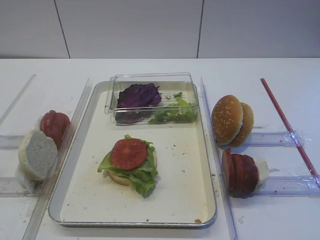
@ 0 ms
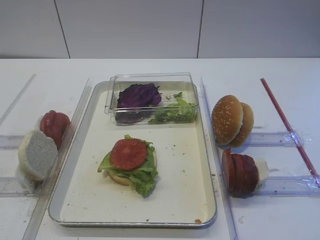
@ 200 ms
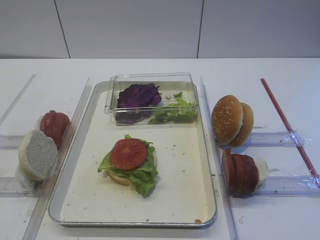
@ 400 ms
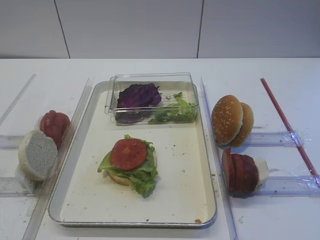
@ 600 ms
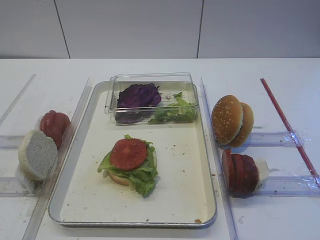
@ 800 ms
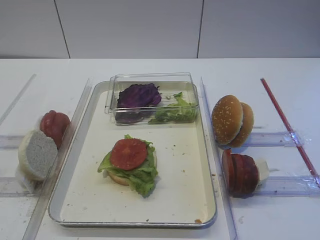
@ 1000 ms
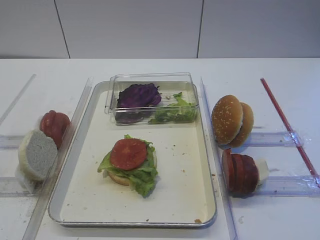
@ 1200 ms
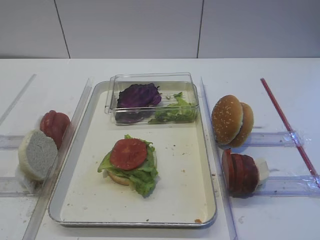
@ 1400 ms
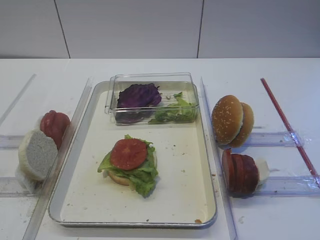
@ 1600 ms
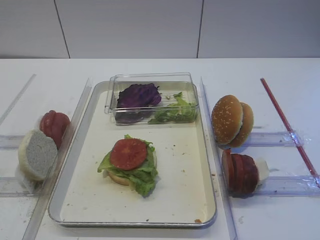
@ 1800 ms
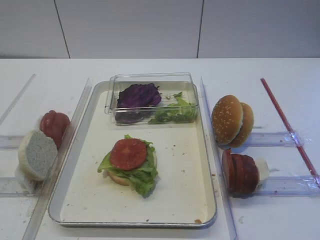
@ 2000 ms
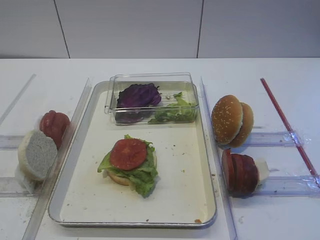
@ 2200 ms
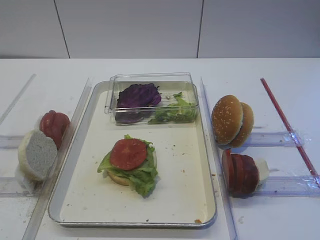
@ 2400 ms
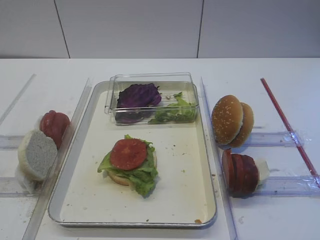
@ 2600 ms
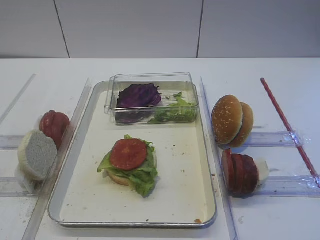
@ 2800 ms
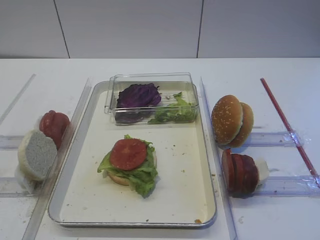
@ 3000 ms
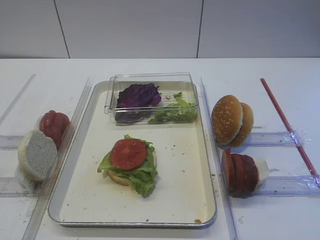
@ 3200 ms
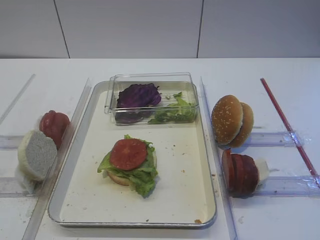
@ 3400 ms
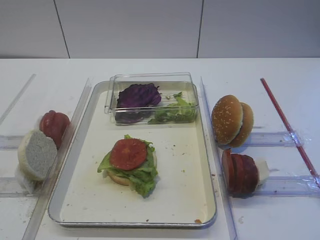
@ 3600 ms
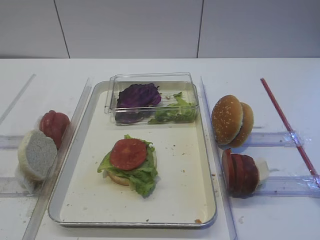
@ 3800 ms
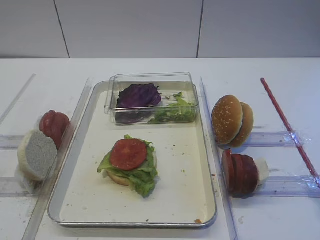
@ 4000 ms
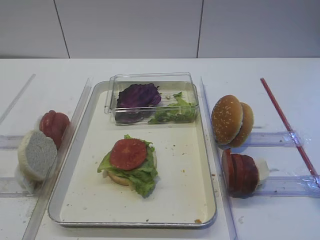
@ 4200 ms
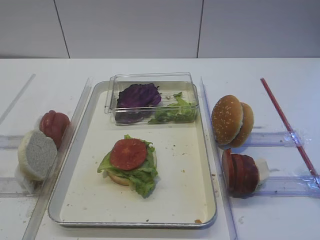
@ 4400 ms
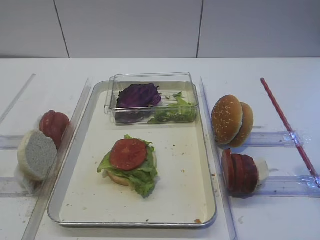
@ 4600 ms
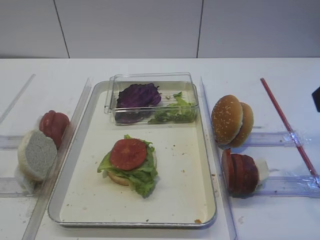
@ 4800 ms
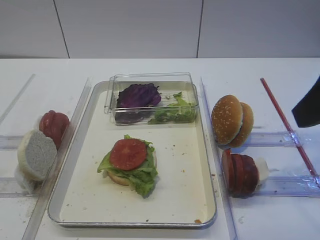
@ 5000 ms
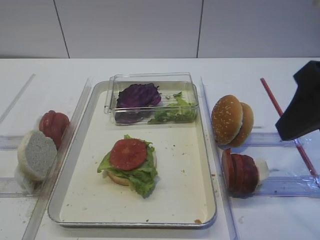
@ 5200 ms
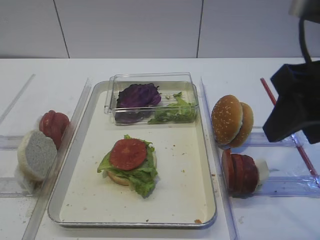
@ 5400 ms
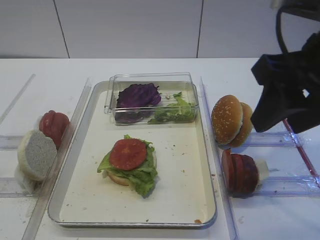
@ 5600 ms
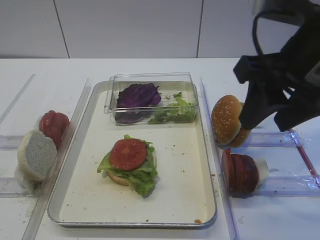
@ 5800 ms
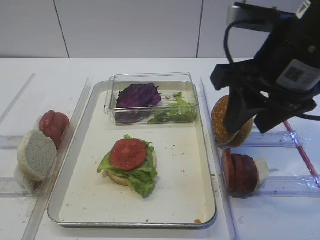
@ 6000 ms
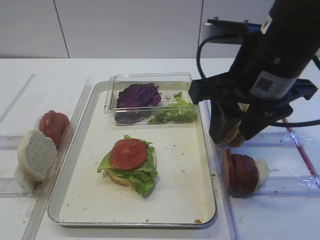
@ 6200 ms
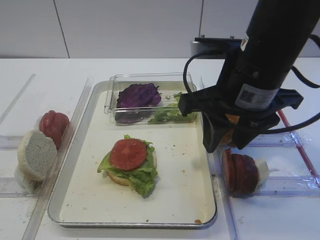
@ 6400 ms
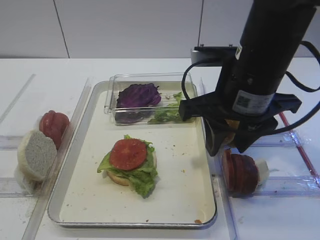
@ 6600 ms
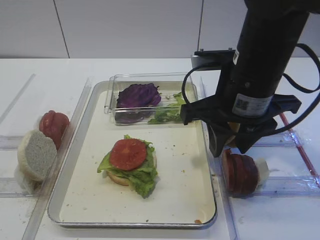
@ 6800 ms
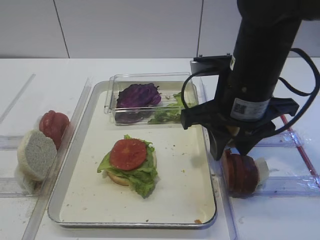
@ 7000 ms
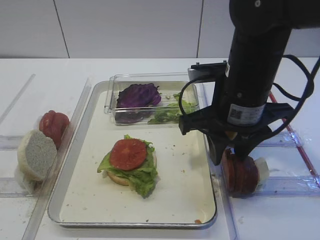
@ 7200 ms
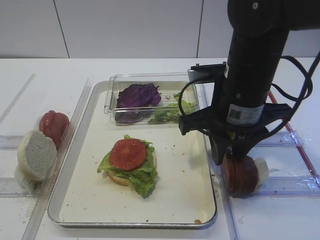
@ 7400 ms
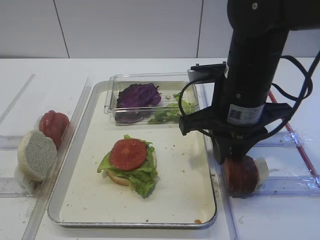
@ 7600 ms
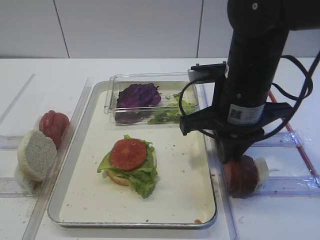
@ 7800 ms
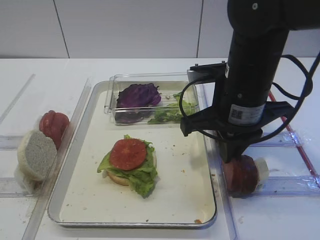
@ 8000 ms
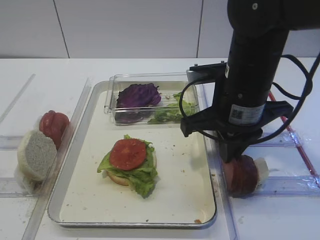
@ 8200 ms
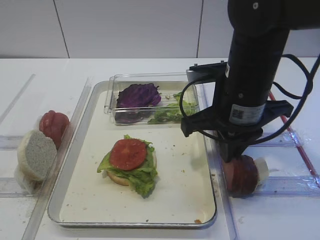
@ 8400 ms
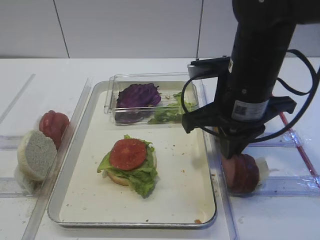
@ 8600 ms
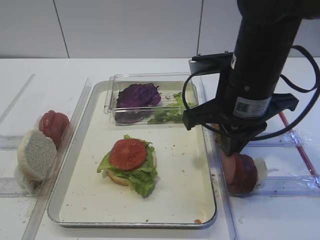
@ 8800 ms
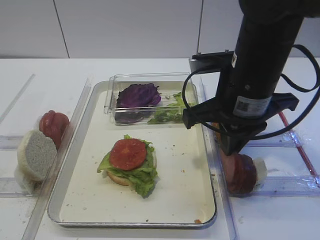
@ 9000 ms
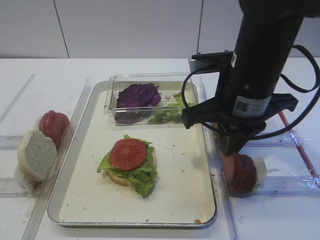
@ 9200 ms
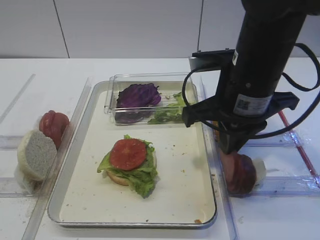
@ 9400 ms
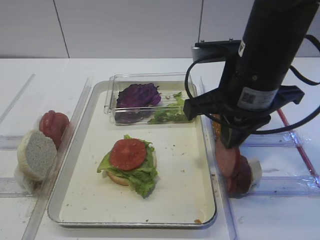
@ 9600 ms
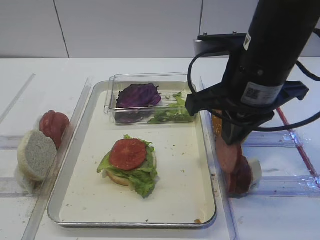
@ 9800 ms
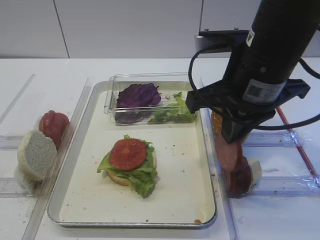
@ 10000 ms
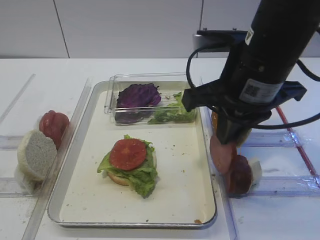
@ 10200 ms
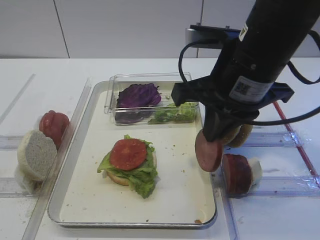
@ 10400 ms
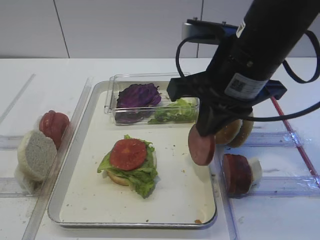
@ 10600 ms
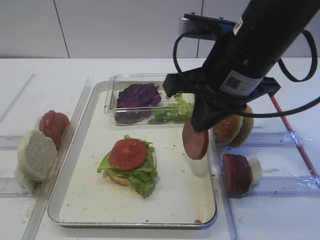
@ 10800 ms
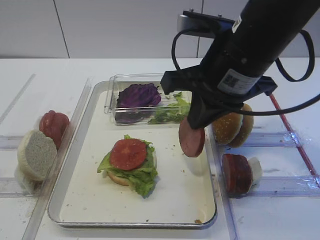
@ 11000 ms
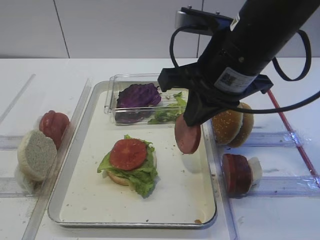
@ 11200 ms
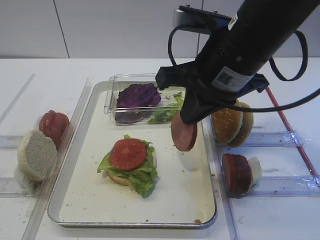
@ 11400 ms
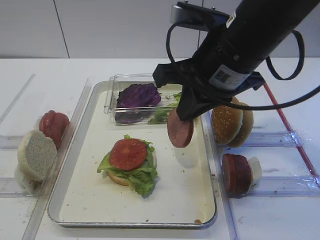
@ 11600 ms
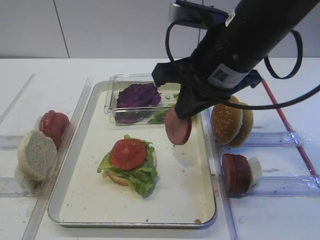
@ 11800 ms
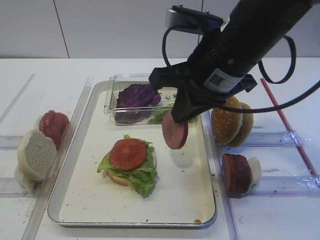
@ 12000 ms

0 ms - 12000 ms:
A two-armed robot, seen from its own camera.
Step, 0 ms - 9600 ms: Pick up the cutlet with the right gripper.
4400 ms - 6000 ms: The right gripper goes roughly 15 cm forward, to the left and downward.
6000 ms - 7600 ms: The right gripper travels downward by roughly 10 cm.
7600 ms - 10400 ms: The grippers move only a little.
10400 ms - 12000 ms: The left gripper opens.

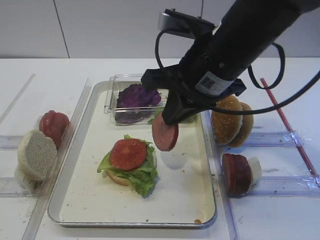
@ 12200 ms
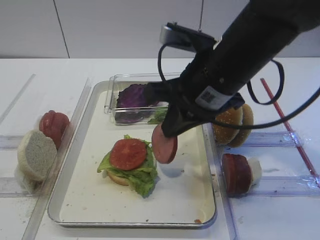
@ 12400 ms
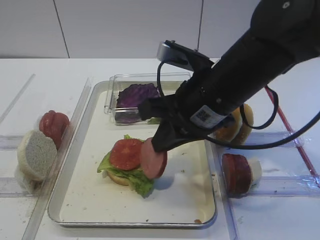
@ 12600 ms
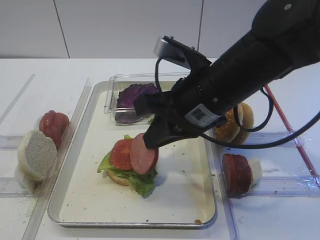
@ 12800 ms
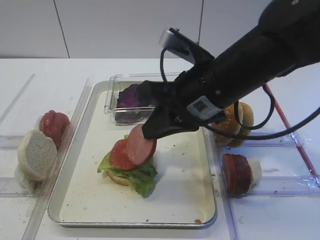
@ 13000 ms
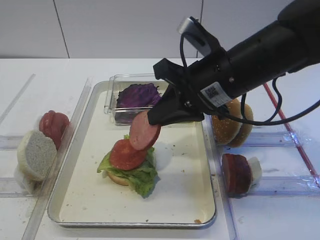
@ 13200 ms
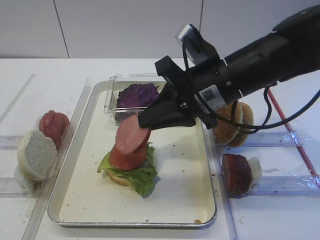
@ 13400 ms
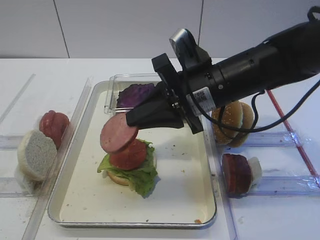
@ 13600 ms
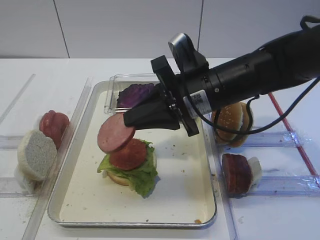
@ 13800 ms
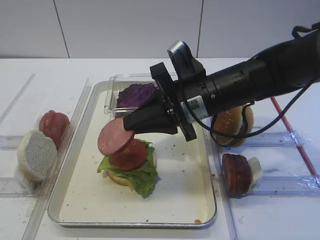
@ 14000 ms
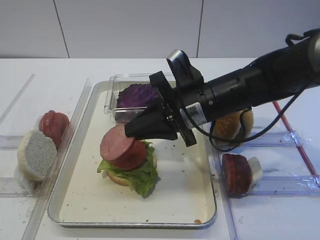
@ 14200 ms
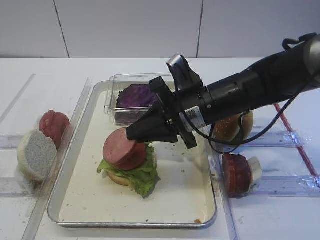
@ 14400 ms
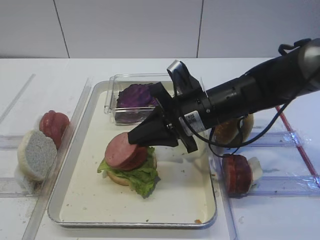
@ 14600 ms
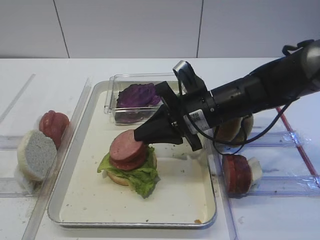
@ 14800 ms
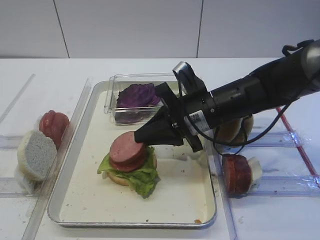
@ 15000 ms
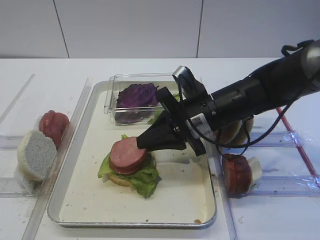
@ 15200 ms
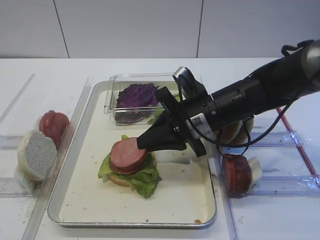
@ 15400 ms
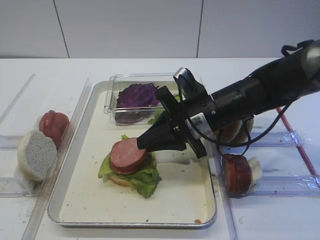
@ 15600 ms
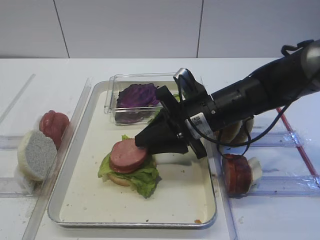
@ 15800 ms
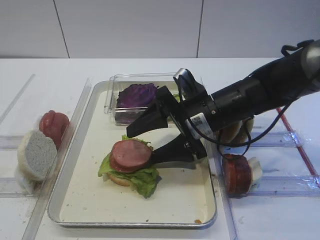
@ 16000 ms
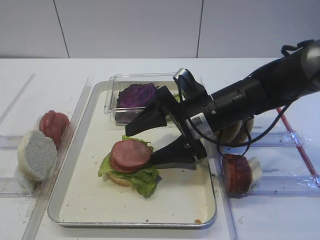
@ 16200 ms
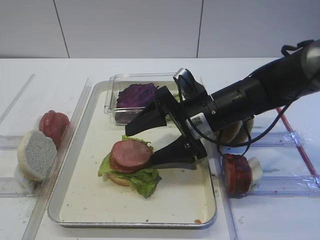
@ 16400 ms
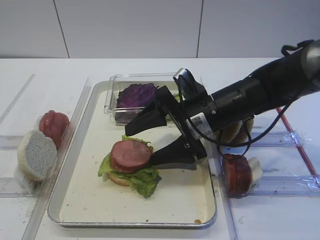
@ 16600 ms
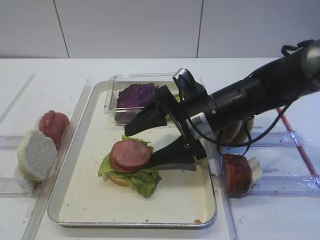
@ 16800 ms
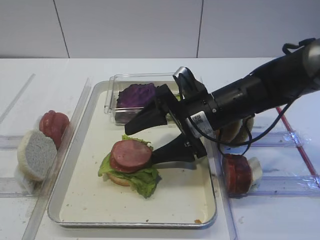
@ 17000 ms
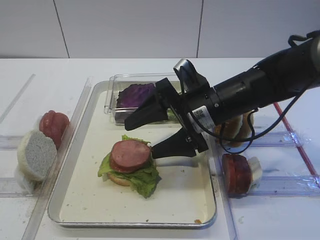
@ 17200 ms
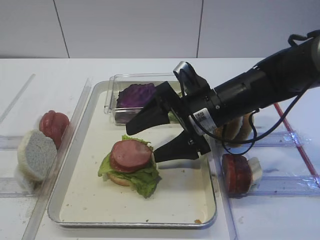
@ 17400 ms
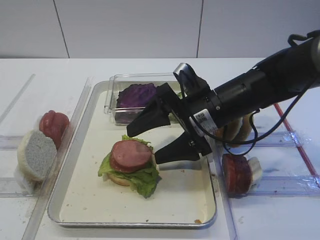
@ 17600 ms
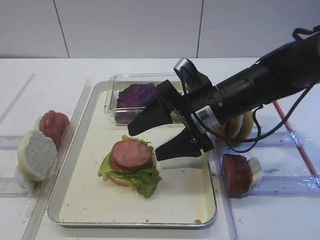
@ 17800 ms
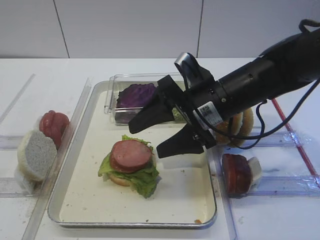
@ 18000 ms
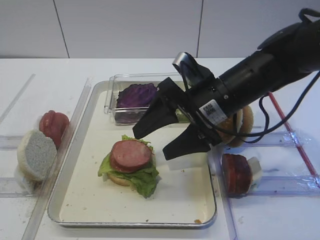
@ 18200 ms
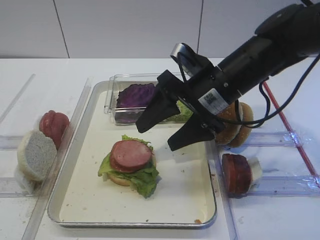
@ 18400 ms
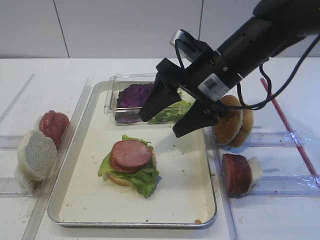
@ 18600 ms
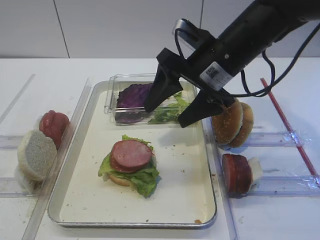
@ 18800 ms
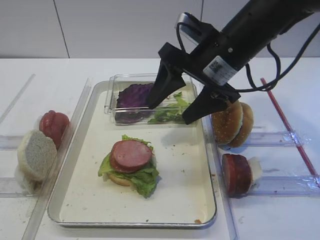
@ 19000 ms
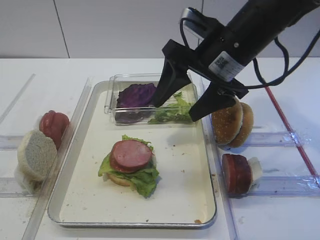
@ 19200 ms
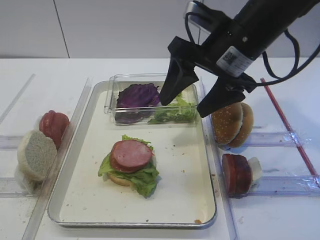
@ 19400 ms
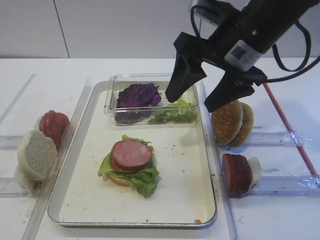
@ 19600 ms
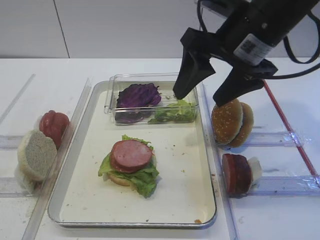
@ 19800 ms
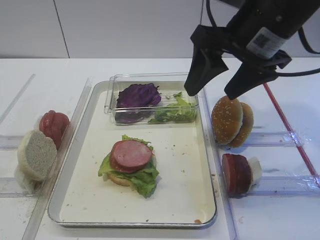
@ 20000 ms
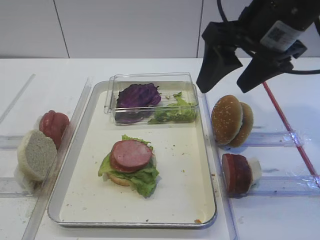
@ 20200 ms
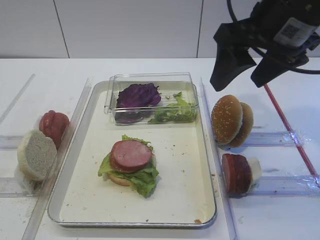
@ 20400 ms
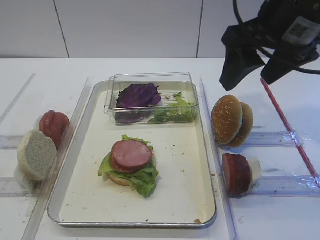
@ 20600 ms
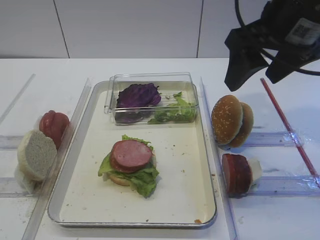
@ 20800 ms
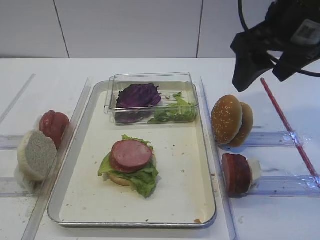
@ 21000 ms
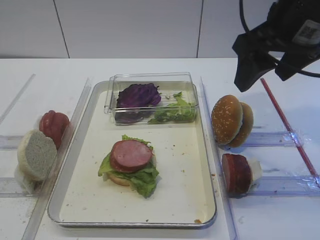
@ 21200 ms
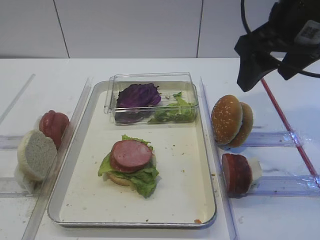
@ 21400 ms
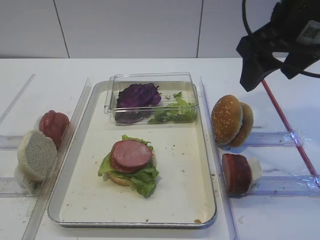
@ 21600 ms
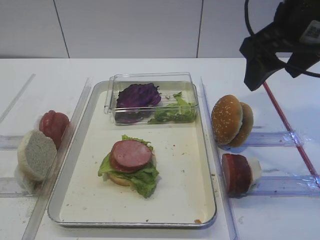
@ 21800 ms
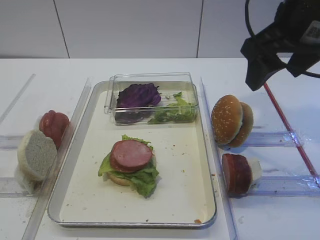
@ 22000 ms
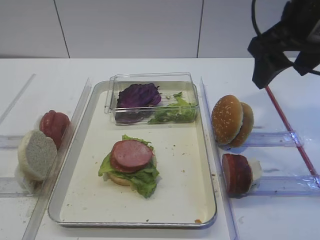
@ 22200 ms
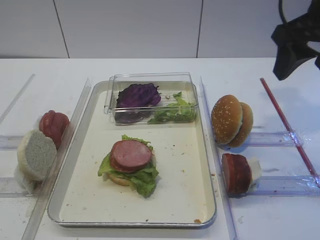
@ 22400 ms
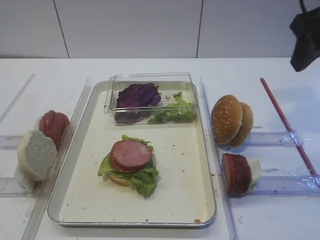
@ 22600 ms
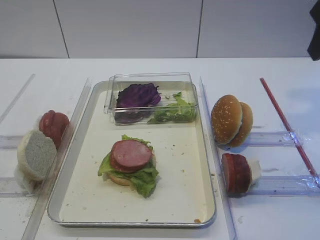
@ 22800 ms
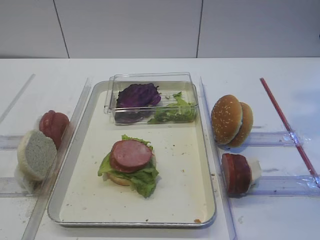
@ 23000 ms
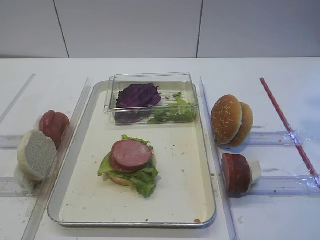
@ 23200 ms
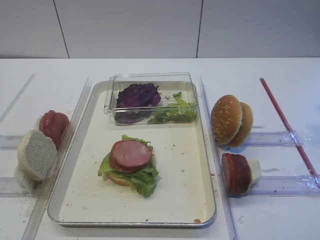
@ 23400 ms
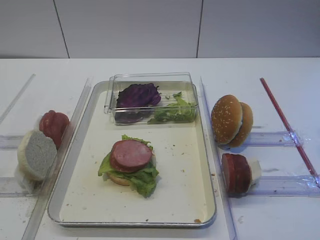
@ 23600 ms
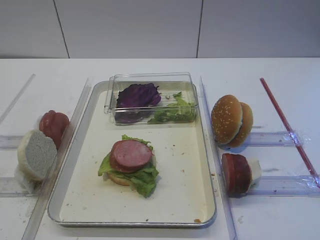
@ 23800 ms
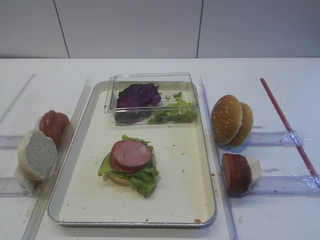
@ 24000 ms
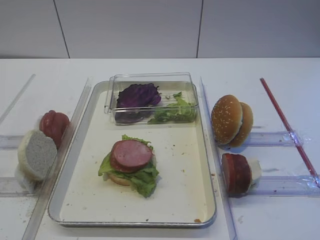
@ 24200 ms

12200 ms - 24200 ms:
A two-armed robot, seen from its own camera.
Step, 12200 ms - 17600 ms: Place the cutlet on the tomato slice with the right gripper.
12200 ms - 13800 ms: The right gripper is displaced downward by about 5 cm.
13800 ms - 15200 ms: The right gripper is displaced downward by roughly 5 cm.
15200 ms - 16600 ms: The right gripper opens up.
16600 ms - 18200 ms: The grippers move only a little.
18200 ms - 19800 ms: The right gripper goes some 10 cm upward.
19800 ms - 21200 ms: The right gripper ends up some 5 cm from where it was.
21200 ms - 22600 ms: The right gripper heads to the right, covering about 5 cm.
22600 ms - 24200 ms: The right gripper heads backward and upward, covering some 25 cm.
